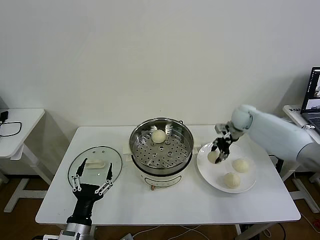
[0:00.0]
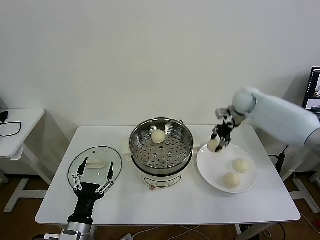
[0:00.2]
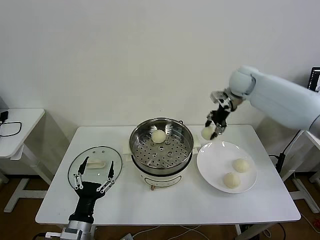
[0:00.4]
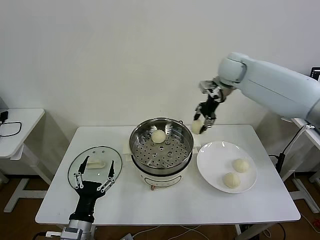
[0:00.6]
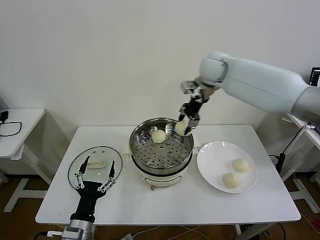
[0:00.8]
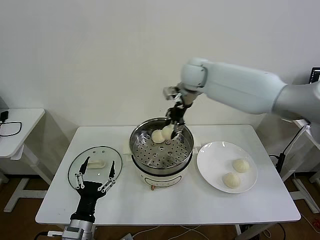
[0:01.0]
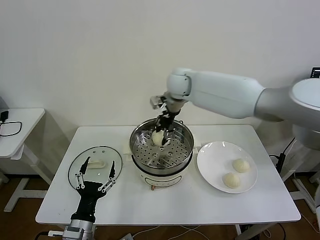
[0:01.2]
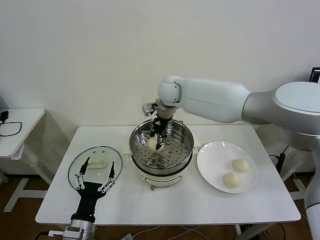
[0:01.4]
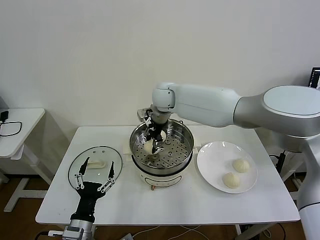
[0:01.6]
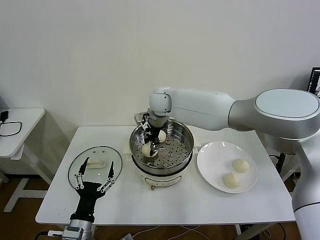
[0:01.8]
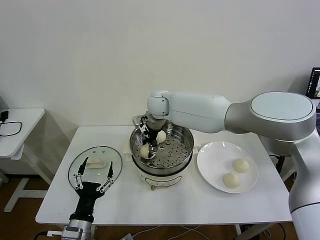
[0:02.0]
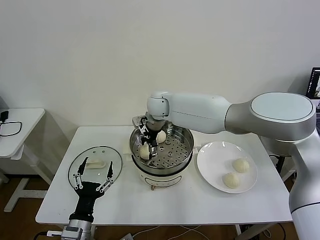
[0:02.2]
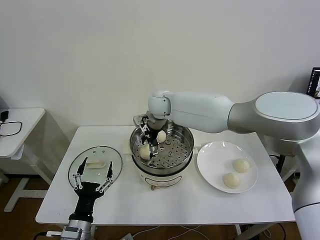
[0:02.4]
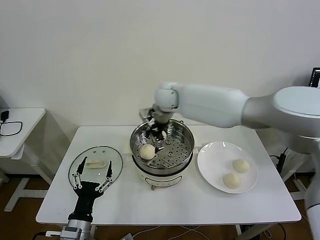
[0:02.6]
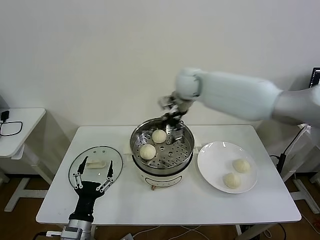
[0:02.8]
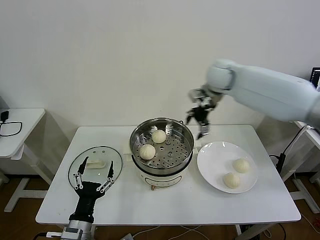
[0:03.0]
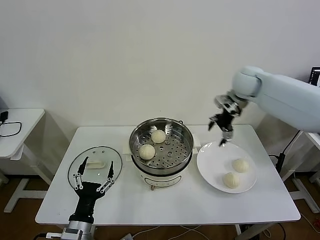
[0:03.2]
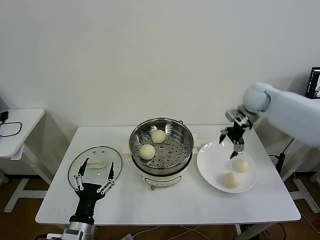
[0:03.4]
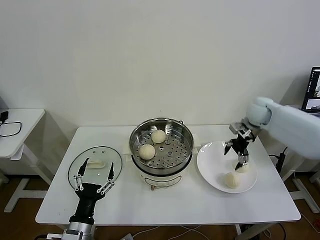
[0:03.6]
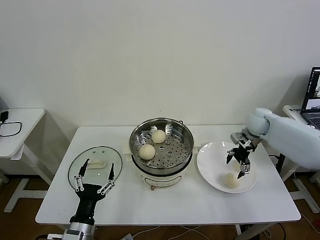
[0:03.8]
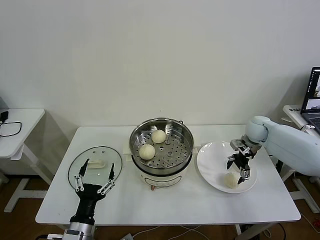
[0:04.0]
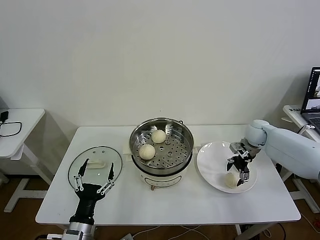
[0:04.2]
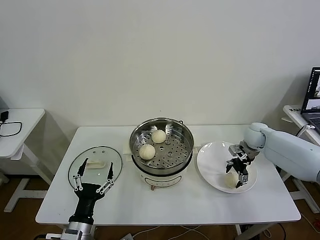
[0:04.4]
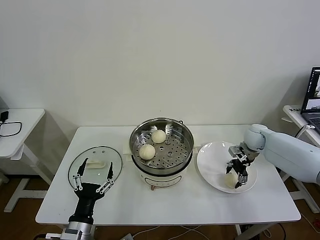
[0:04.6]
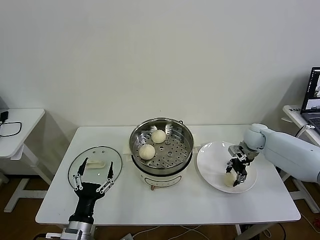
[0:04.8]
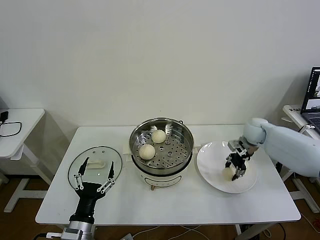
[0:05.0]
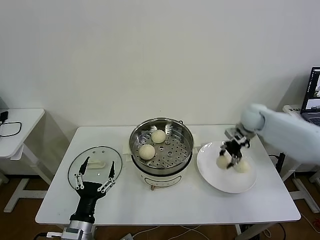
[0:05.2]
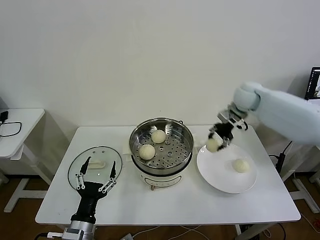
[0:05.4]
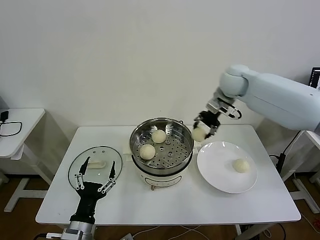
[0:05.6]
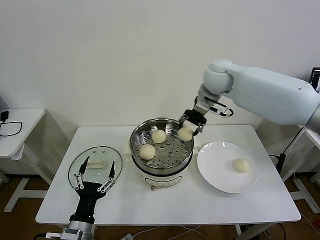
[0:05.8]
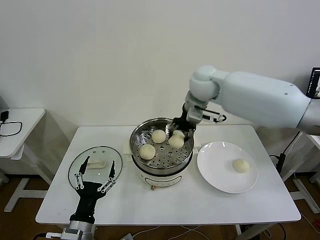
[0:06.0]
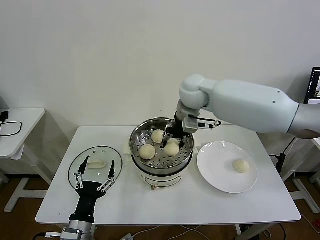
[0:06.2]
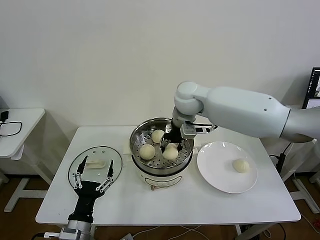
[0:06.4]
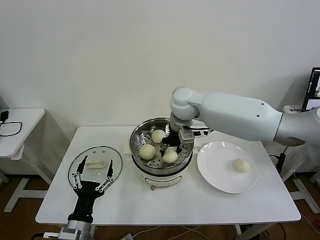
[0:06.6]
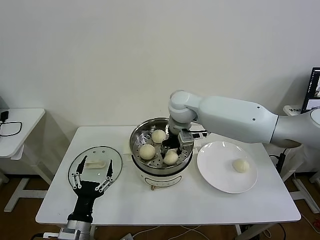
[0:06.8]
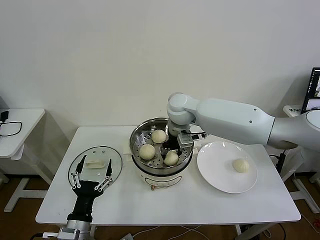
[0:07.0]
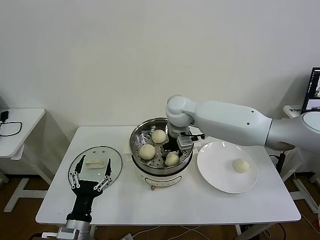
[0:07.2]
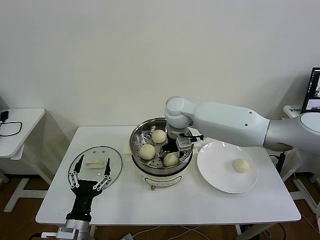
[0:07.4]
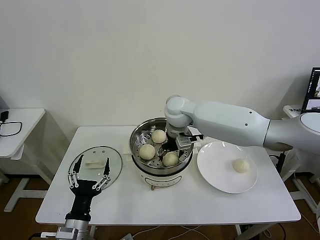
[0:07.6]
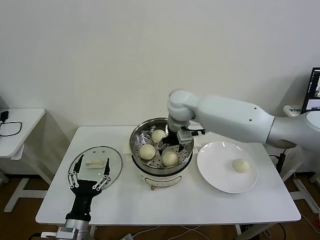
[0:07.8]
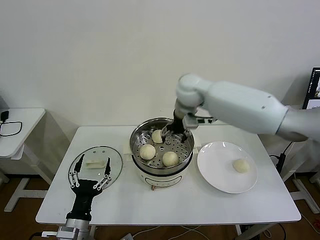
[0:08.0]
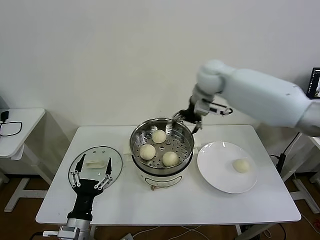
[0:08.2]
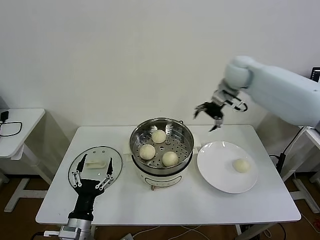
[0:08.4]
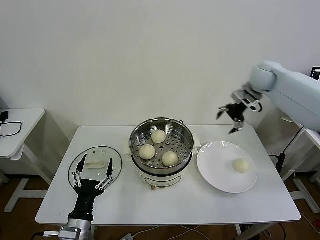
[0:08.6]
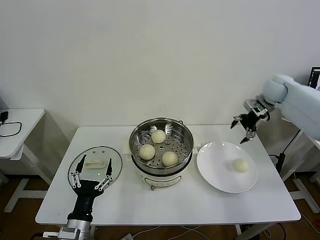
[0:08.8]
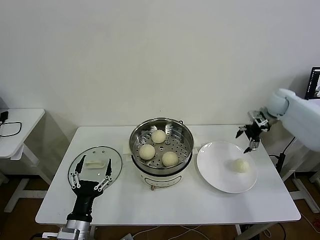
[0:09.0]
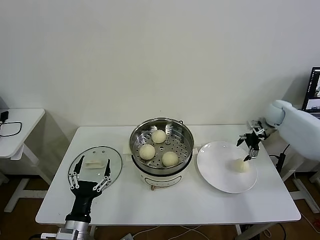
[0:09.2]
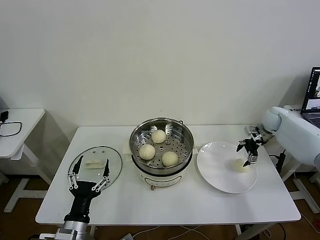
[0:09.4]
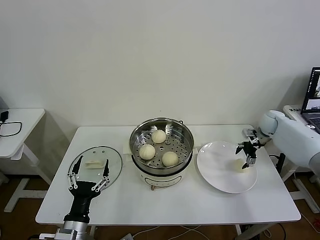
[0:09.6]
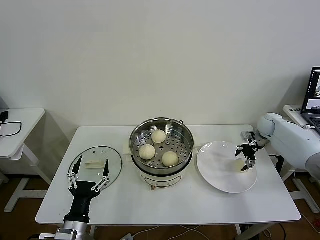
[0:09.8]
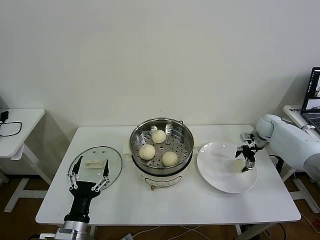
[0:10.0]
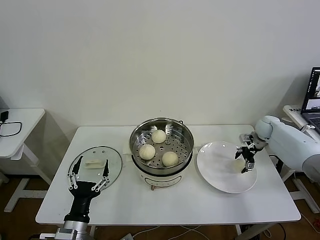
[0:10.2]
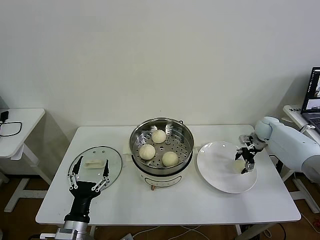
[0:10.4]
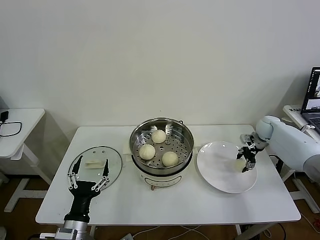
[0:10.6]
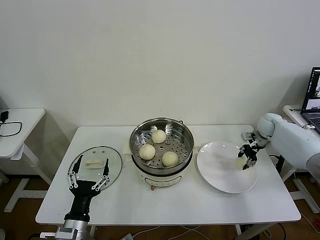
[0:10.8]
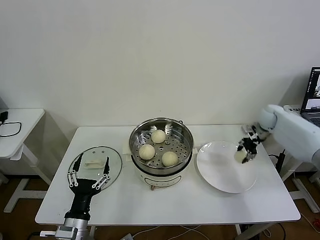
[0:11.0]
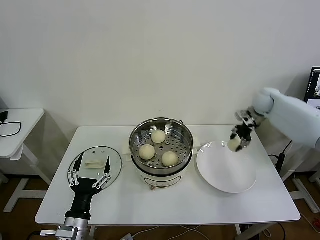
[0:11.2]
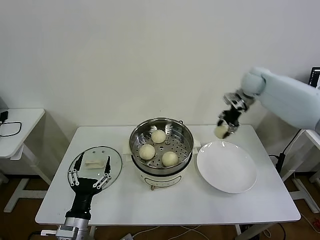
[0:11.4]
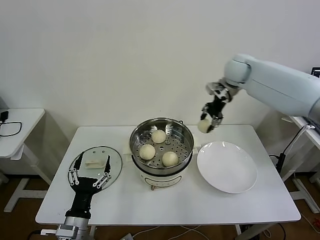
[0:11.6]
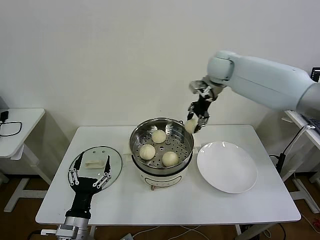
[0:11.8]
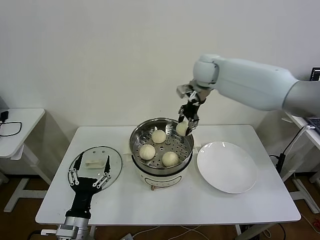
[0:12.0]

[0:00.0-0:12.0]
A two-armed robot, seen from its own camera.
Task of the whole recording: take steamed baozi put them in steamer then cover it.
Step, 0:00.0 to 0:02.4: Place the baozi on the steamer with right gripper.
Step, 0:02.6 to 0:04.8: Grasp the baozi in the plate with right gripper.
Step, 0:05.2 to 0:07.8: Place the baozi on the steamer with right gripper.
Step, 0:08.0 to 0:10.8: Grasp the baozi in the plate with right gripper.
0:00.0 to 0:01.6: The right gripper shifts roughly 30 cm to the left.
0:01.6 to 0:03.0: The right gripper is displaced to the right by roughly 20 cm, and opens.
0:03.0 to 0:04.4: The right gripper heads downward and to the right, covering approximately 30 cm.
0:04.4 to 0:06.0: The right gripper is displaced to the left and upward by roughly 35 cm, and closes.
0:06.0 to 0:07.6: The right gripper is displaced downward and to the left by approximately 10 cm, and opens up.
0:07.6 to 0:09.0: The right gripper heads to the right, covering roughly 40 cm.
0:09.0 to 0:10.4: The right gripper is displaced downward by approximately 10 cm.
0:10.4 to 0:12.0: The right gripper is displaced to the left and upward by approximately 40 cm, and closes.

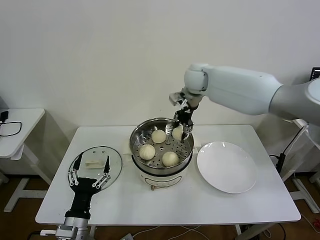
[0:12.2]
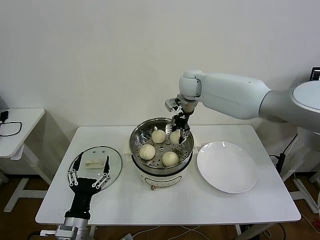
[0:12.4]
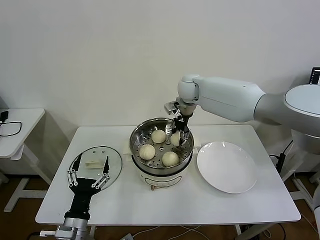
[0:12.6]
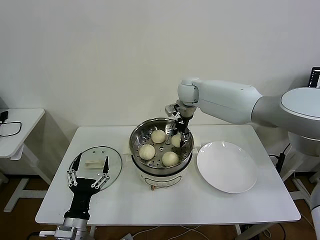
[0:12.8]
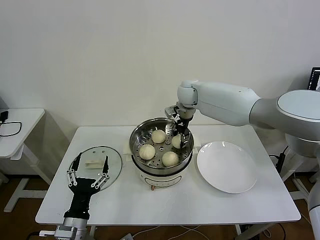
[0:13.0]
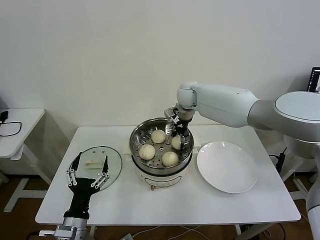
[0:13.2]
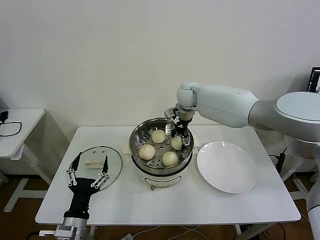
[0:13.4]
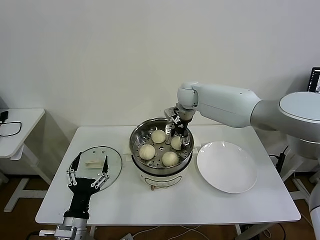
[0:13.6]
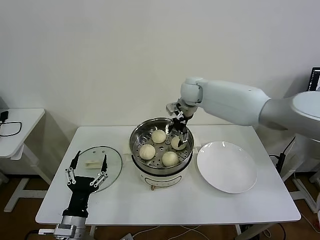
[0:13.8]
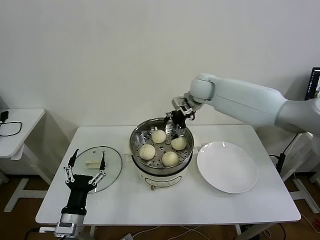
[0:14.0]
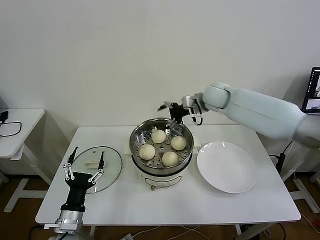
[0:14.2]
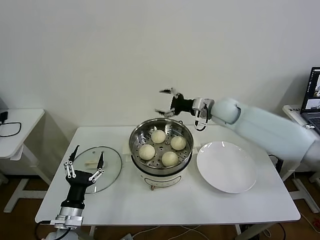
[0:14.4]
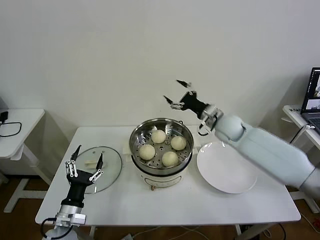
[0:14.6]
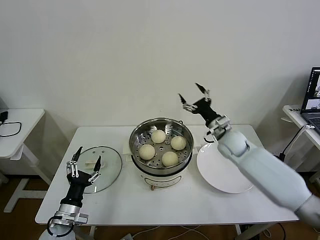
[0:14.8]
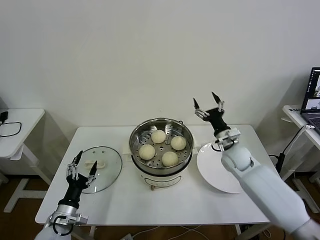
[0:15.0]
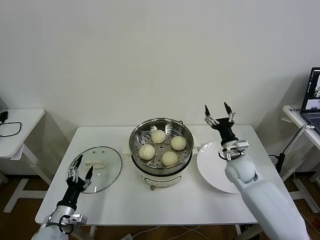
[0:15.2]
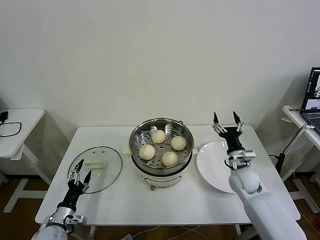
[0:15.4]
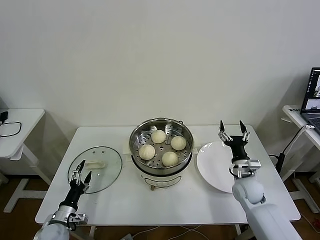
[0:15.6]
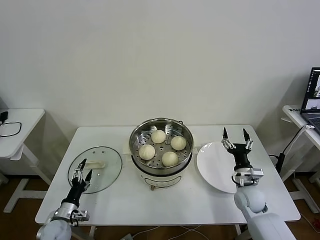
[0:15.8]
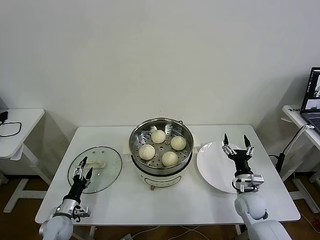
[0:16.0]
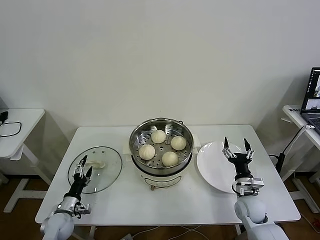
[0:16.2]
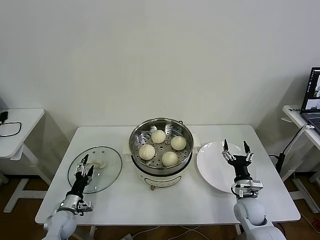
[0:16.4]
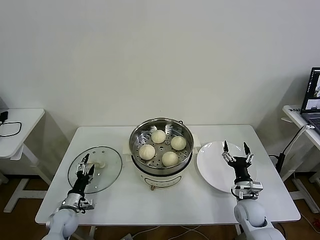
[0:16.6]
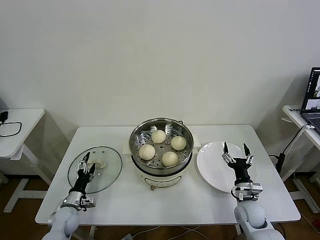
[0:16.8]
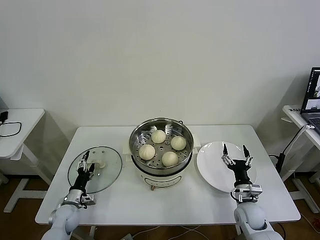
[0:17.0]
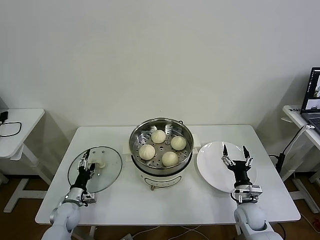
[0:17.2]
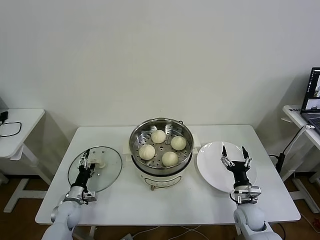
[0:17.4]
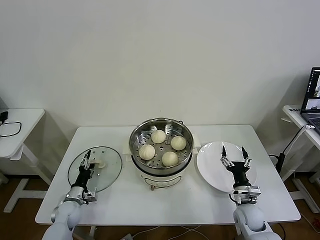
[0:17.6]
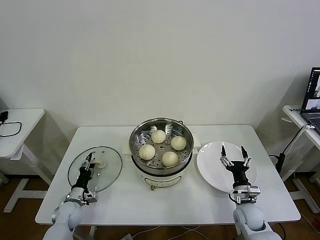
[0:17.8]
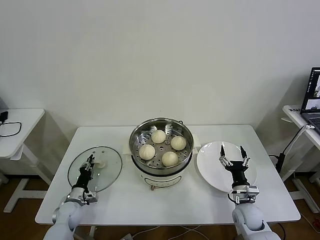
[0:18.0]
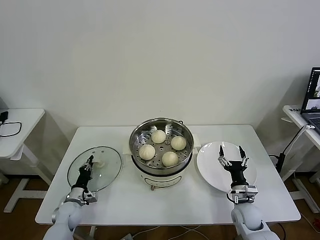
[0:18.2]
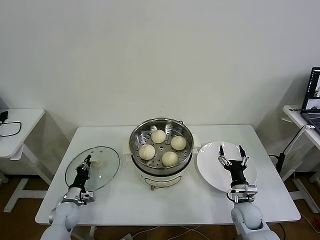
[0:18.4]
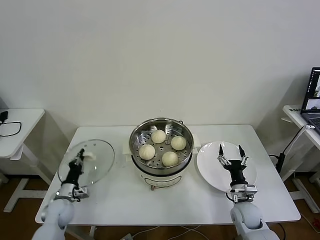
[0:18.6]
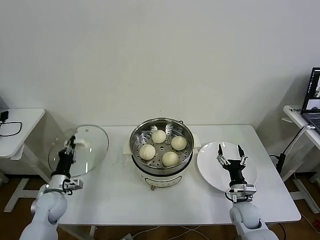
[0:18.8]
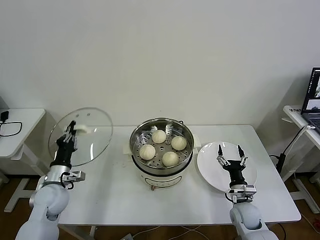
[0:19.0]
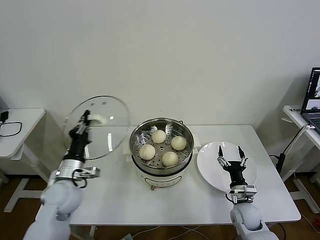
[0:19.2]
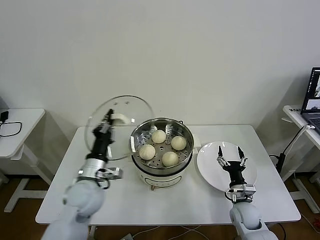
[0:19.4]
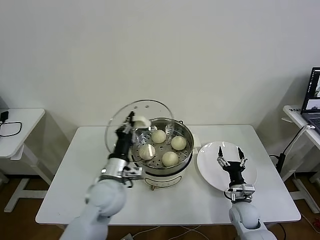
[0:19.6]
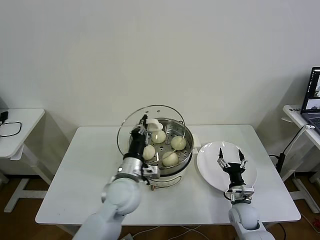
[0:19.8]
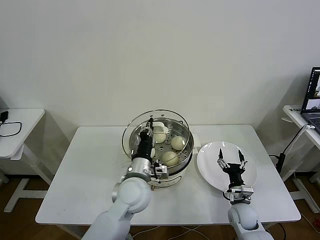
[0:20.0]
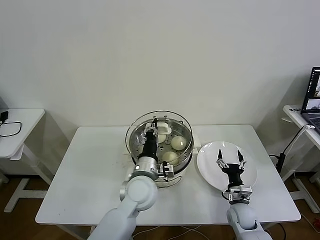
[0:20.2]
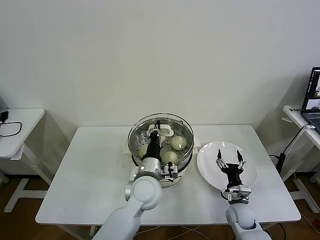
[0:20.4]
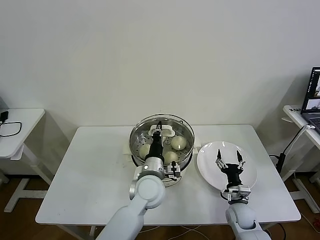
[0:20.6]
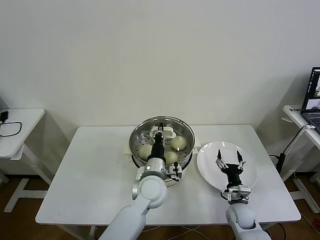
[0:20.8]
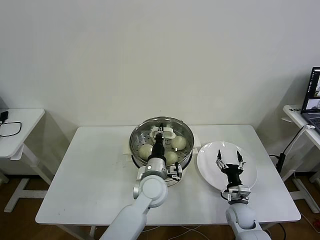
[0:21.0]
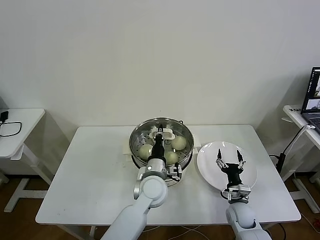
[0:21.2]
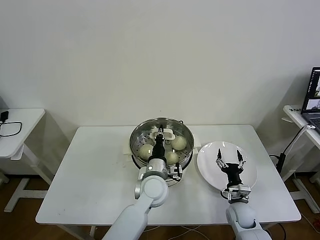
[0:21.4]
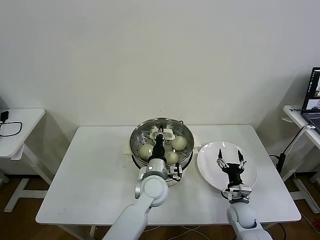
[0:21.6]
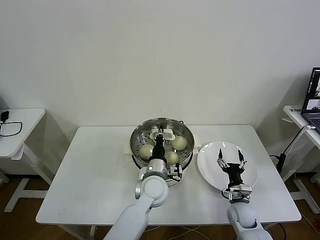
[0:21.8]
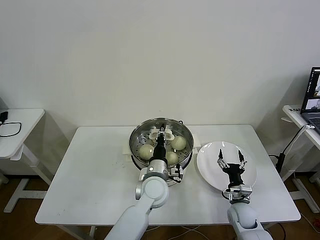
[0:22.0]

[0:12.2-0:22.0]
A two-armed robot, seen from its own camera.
Task of the whole recording: take steamed baozi put them in steamer then cover it.
Step, 0:12.2 to 0:14.0: Place the baozi on the steamer with right gripper.
Step, 0:14.2 to 0:18.4: Grasp the pot lid with left gripper.
0:12.2 to 0:13.6: The right gripper travels downward by roughly 5 cm, and opens.
0:13.6 to 0:15.0: The right gripper goes approximately 30 cm to the right, downward and backward; the left gripper is displaced to the left, downward and forward by some 10 cm.
0:15.0 to 0:16.4: The left gripper heads downward and forward, covering some 10 cm; the right gripper is displaced backward and downward by approximately 20 cm.
0:16.4 to 0:17.8: The left gripper closes up.
0:17.8 to 0:19.2: The left gripper is displaced upward by some 20 cm, and closes up.
0:19.2 to 0:20.6: The left gripper travels to the right by approximately 25 cm.
0:20.6 to 0:22.0: There are only small adjustments of the grippers.
